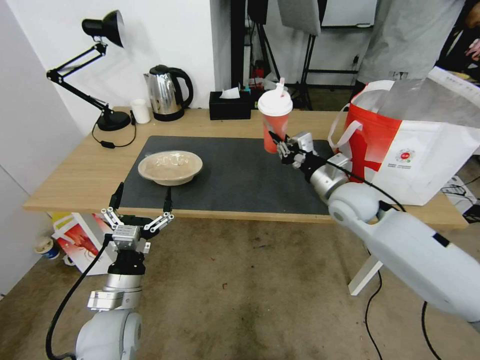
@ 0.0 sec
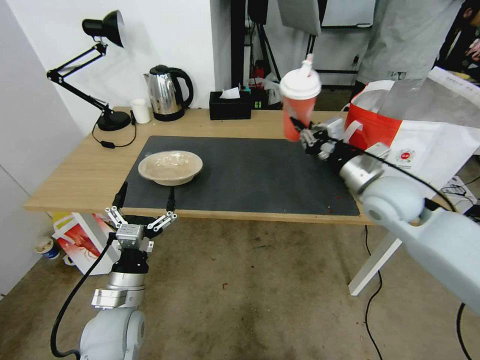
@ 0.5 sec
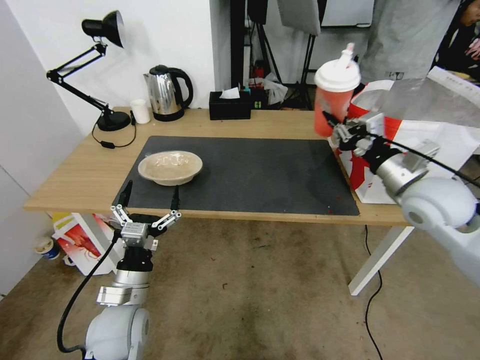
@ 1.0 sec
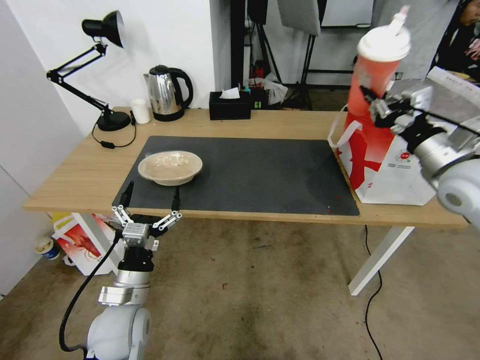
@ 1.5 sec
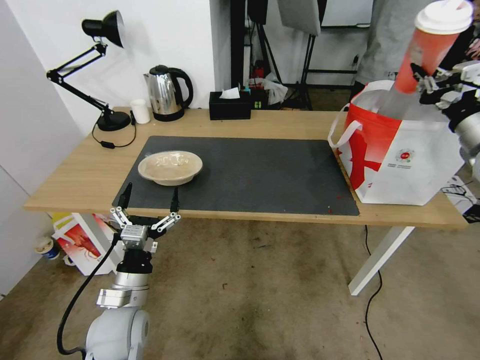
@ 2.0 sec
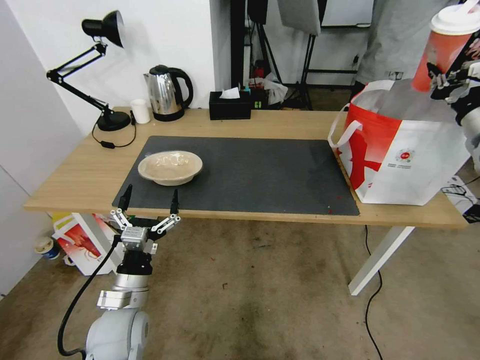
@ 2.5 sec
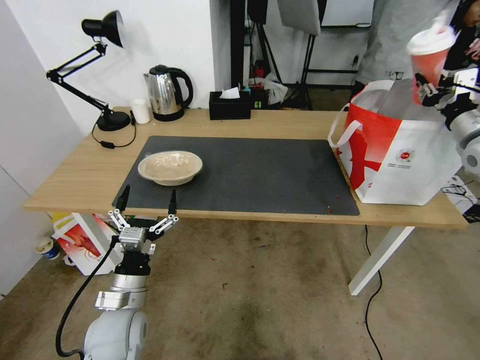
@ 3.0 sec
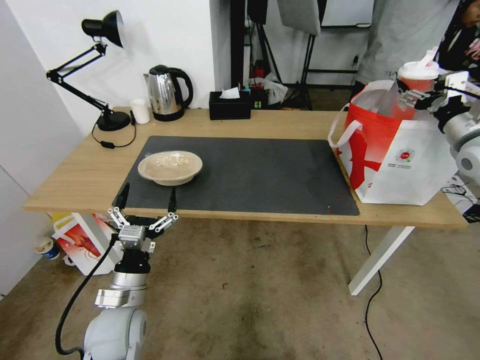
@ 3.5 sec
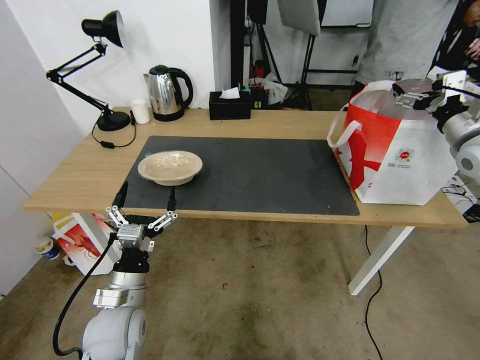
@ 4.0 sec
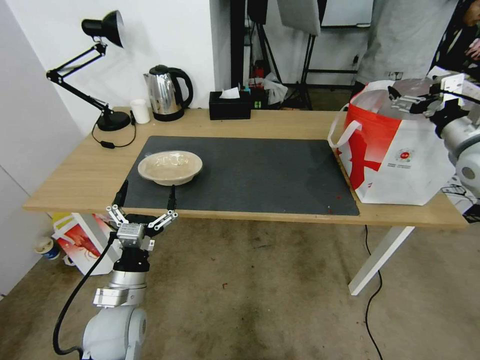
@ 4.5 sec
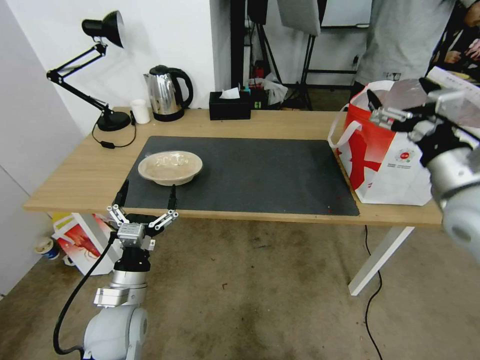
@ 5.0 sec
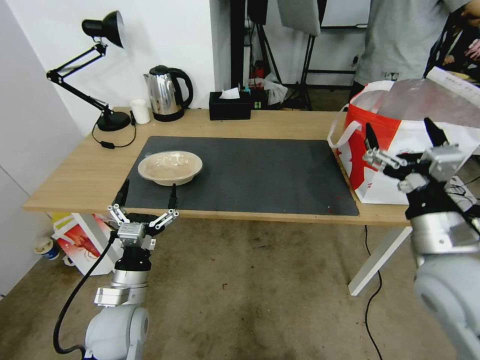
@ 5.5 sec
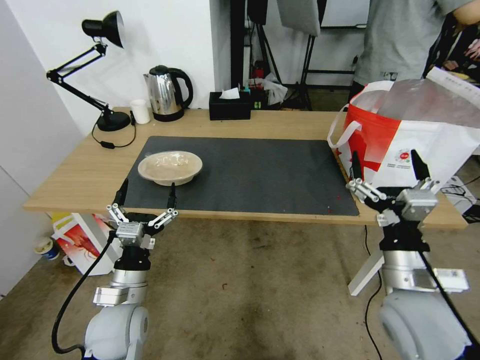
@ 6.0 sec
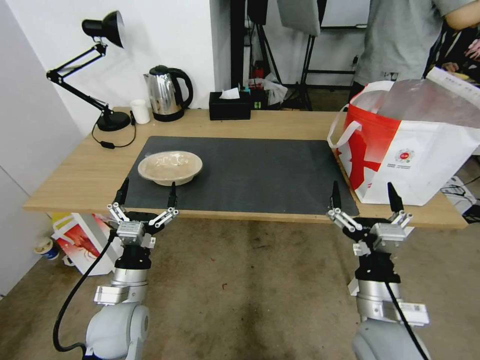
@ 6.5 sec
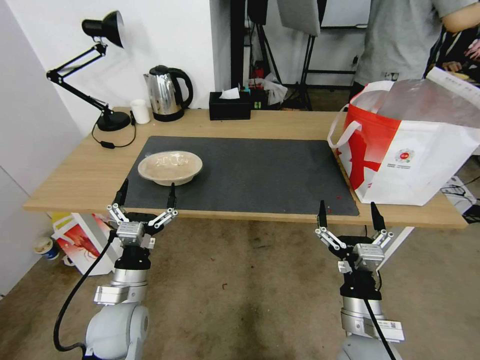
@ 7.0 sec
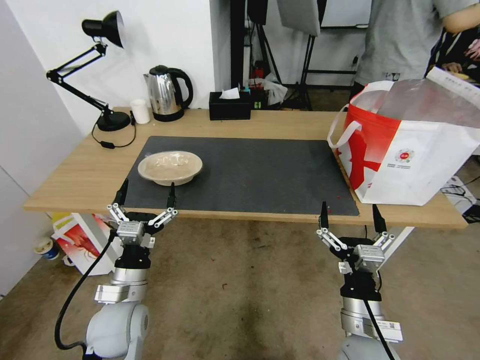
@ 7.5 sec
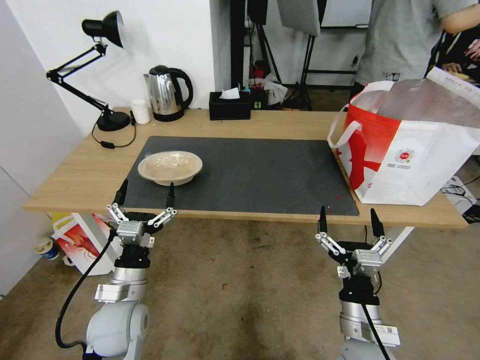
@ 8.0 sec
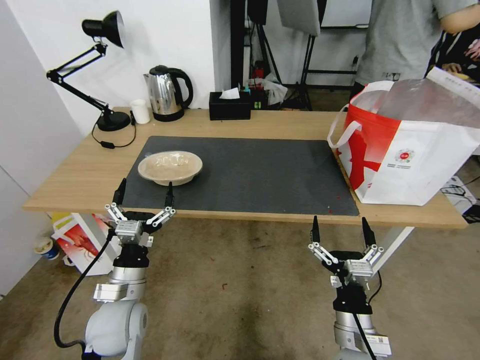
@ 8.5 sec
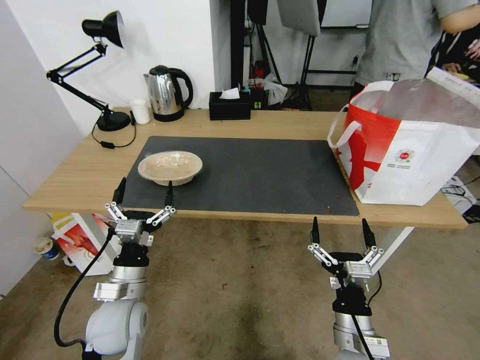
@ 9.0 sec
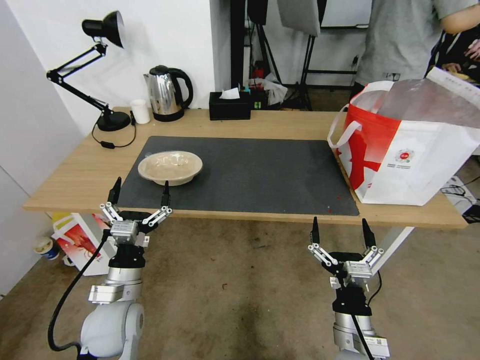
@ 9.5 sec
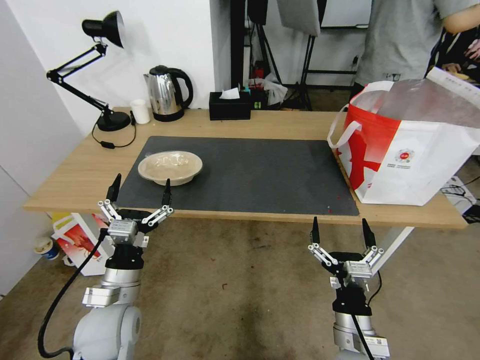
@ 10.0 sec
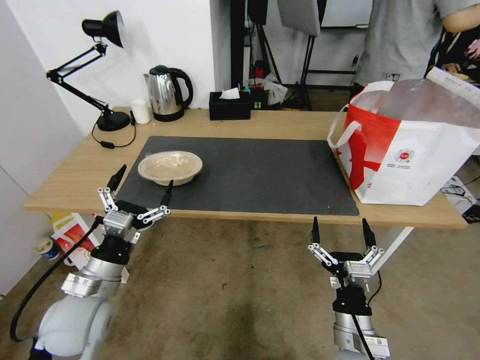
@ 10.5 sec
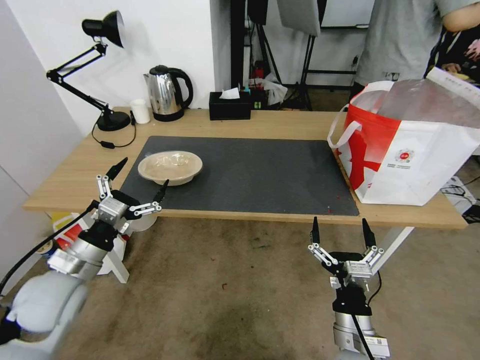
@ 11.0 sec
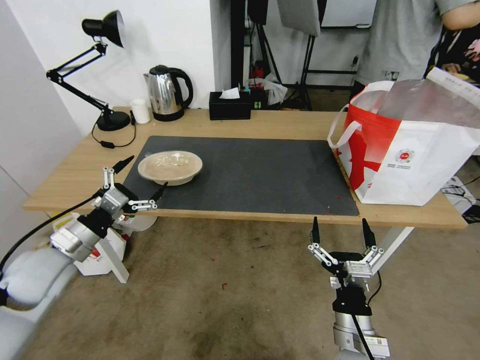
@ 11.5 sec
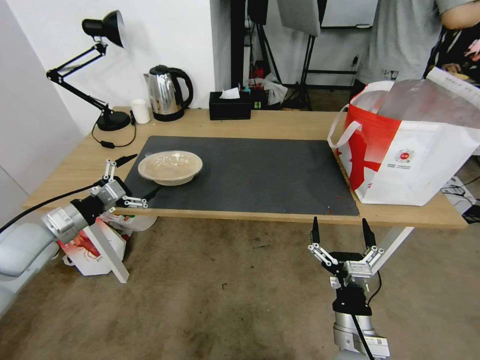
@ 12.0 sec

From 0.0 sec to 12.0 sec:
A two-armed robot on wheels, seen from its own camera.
Task of the whole recording: Pick up the trash from the table and place it into the takeout bag.
From 0.0 sec to 2.0 sec: The right gripper heads to the right and upward, covering some 25 cm.
From 2.0 sec to 4.0 sec: The right gripper opens.
From 4.0 sec to 6.0 sec: The right gripper shifts some 35 cm backward, to the left and downward.
From 6.0 sec to 8.0 sec: The right gripper is displaced downward and to the left by some 10 cm.
From 8.0 sec to 10.0 sec: The grippers stay close to where they were, moving slightly.
From 10.0 sec to 12.0 sec: The left gripper shifts approximately 25 cm to the left, forward and upward.

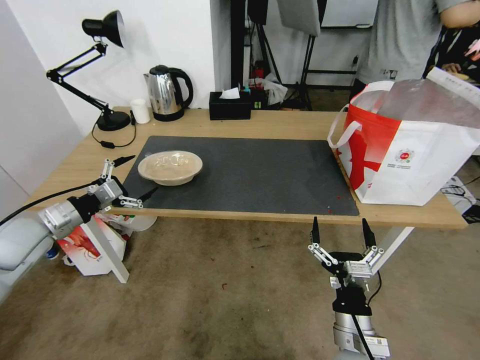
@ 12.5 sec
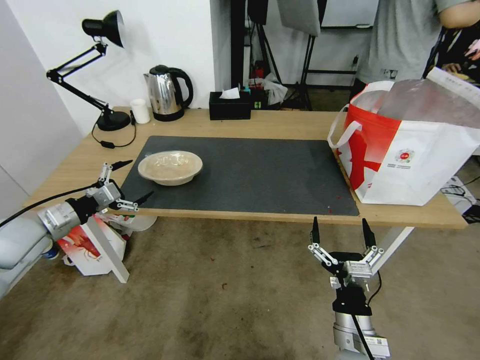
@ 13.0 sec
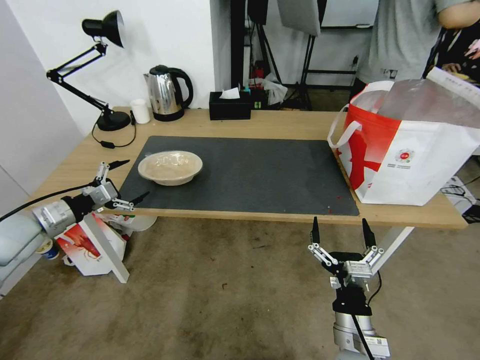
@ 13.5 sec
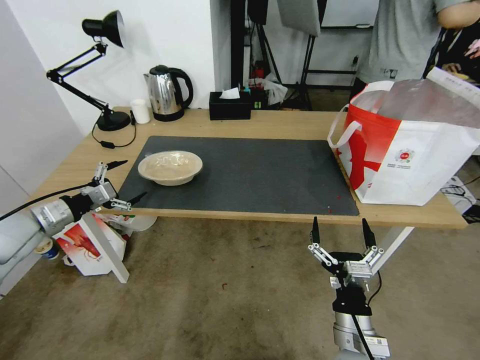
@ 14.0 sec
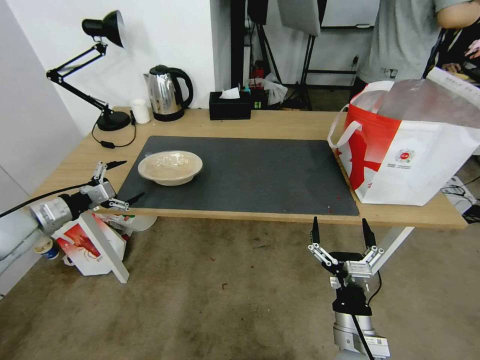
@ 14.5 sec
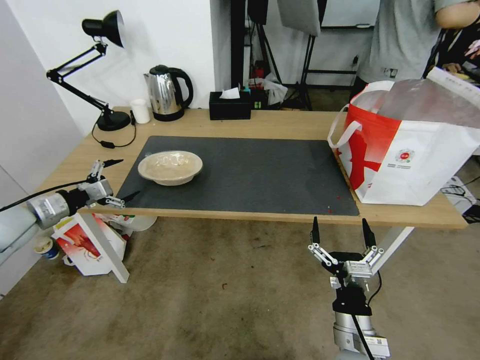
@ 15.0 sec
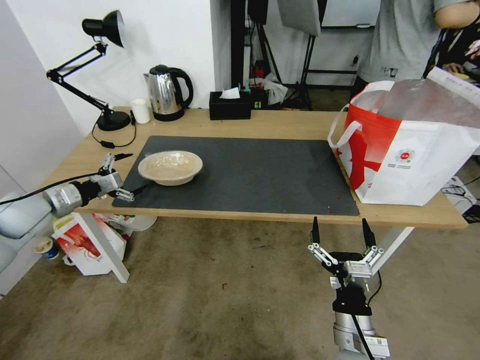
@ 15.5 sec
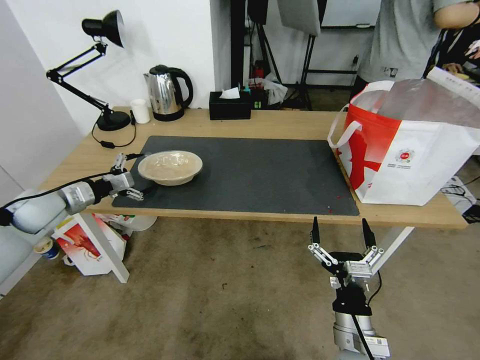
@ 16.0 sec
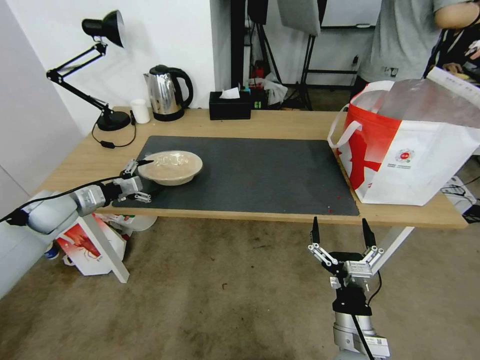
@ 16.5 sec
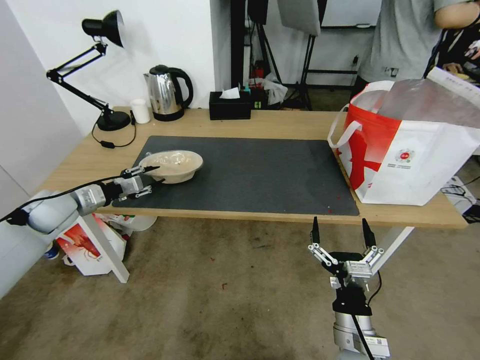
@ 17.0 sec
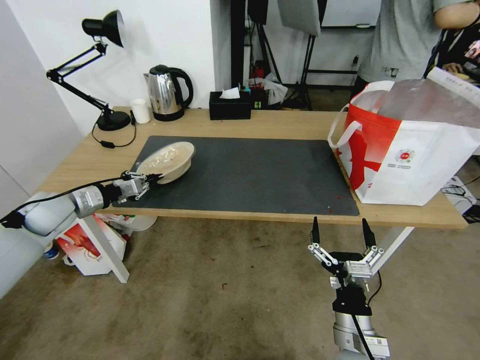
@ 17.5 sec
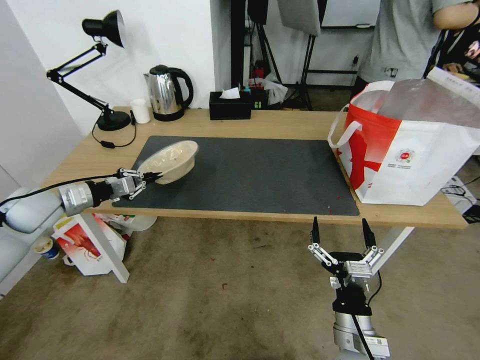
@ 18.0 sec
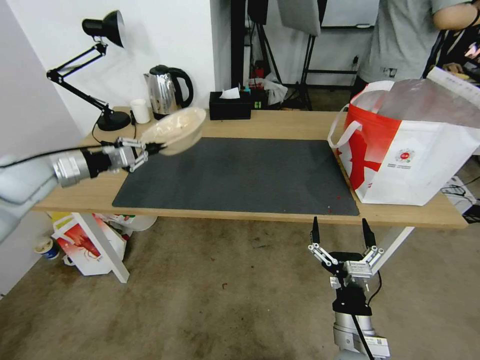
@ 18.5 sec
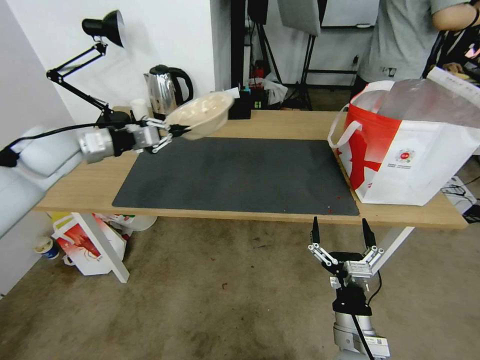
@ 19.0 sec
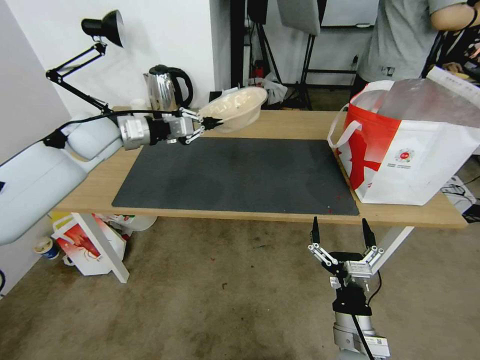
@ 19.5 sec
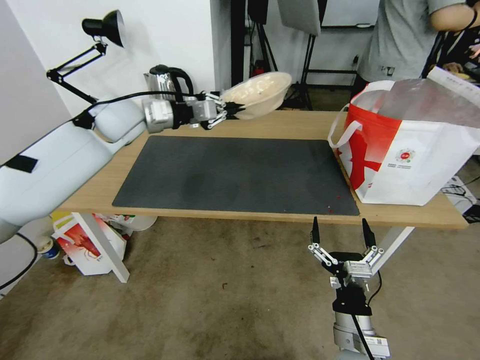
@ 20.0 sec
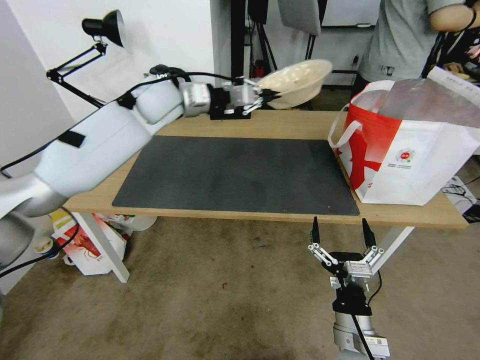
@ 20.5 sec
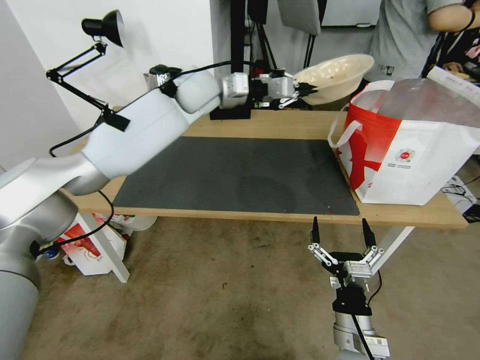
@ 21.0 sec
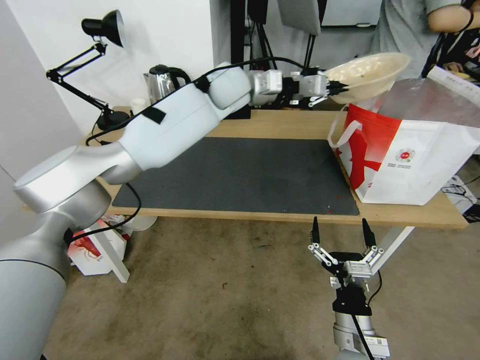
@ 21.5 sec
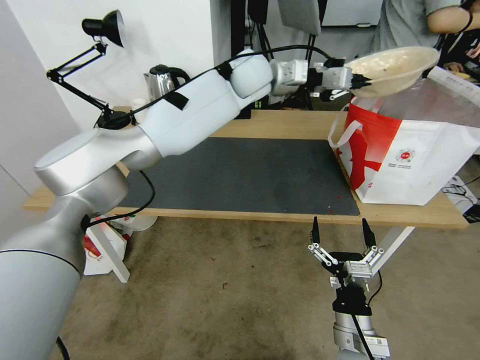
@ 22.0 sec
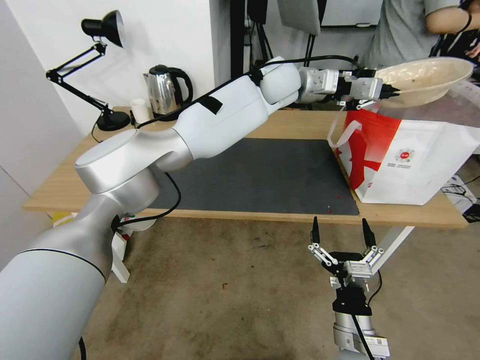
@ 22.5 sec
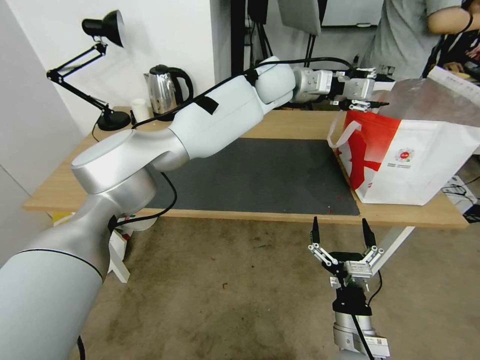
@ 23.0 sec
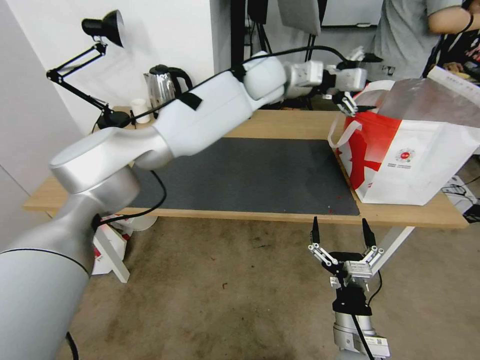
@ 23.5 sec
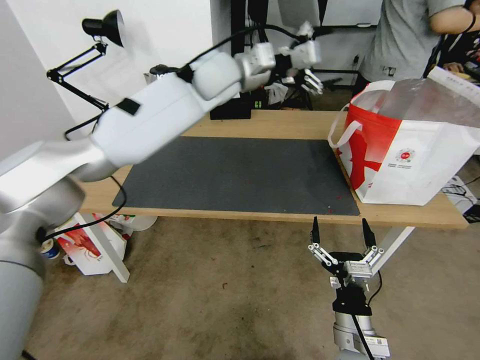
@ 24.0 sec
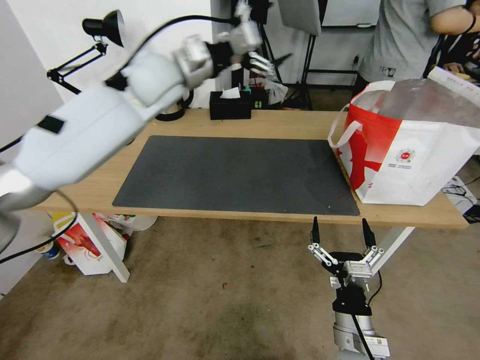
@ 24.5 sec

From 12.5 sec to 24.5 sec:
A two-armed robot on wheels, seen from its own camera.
Task of the whole recording: Pick up the trash from the table and place it into the takeout bag.
From 12.5 sec to 14.5 sec: There are only small adjustments of the grippers.
From 14.5 sec to 16.5 sec: The left gripper moves forward, approximately 5 cm.
From 16.5 sec to 18.5 sec: The left gripper goes roughly 10 cm upward, and closes its fingers.
From 18.5 sec to 20.5 sec: The left gripper heads to the right and forward, covering some 25 cm.
From 20.5 sec to 22.5 sec: The left gripper shifts roughly 30 cm to the right.
From 22.5 sec to 24.5 sec: The left gripper shifts about 25 cm to the left, and opens.

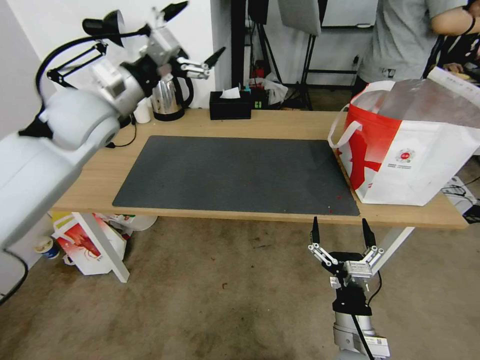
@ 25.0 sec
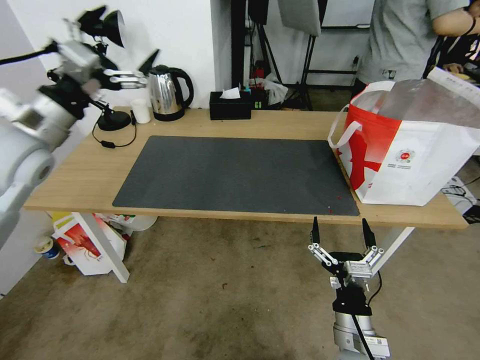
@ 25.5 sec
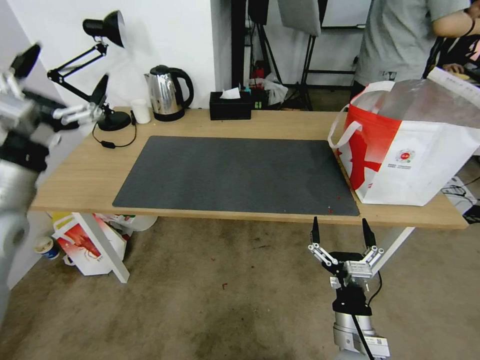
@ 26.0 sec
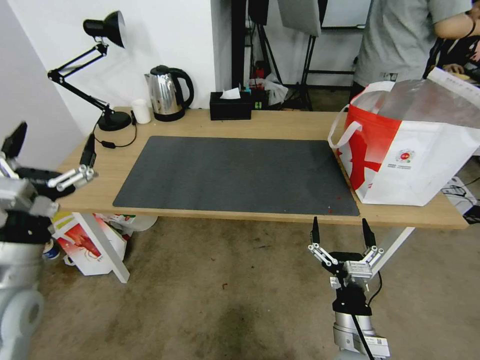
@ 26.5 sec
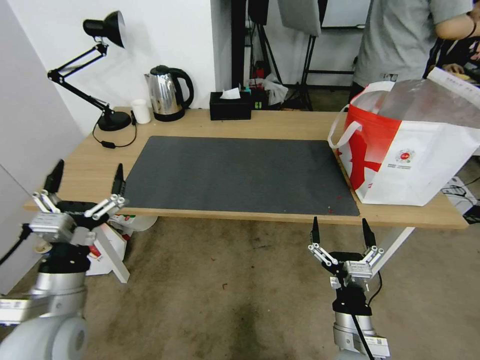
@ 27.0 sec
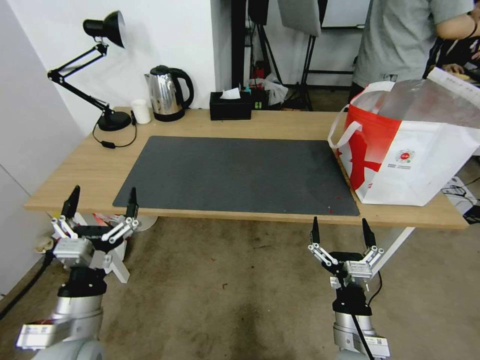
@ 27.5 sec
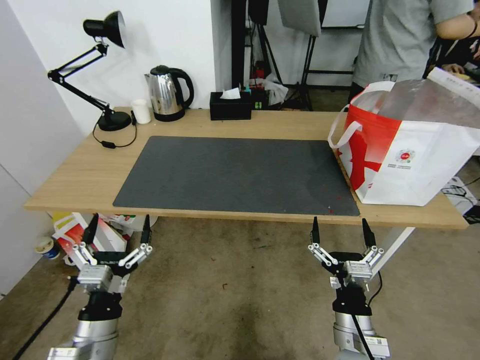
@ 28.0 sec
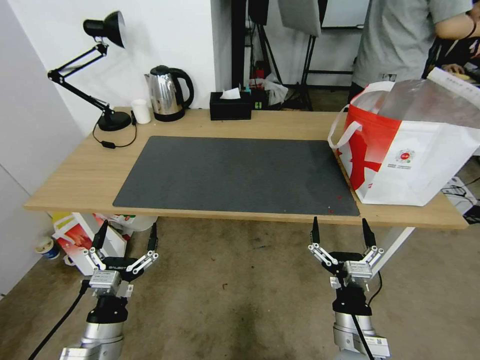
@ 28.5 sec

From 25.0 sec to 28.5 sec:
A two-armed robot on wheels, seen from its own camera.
Task of the whole recording: Pick up the trash from the table and place it into the takeout bag.
From 25.0 sec to 27.0 sec: The left gripper heads backward and downward, covering about 35 cm.
From 27.0 sec to 28.5 sec: The left gripper shifts roughly 10 cm downward.
